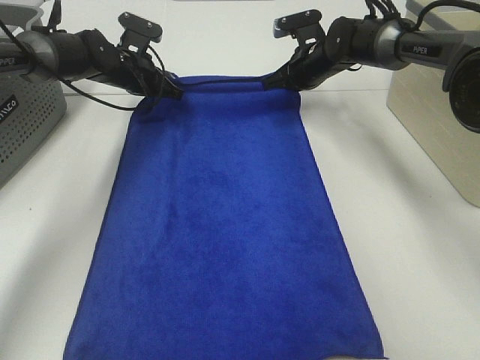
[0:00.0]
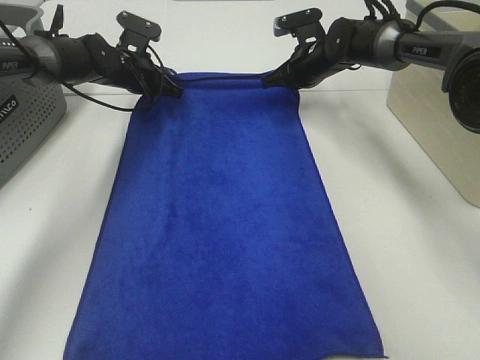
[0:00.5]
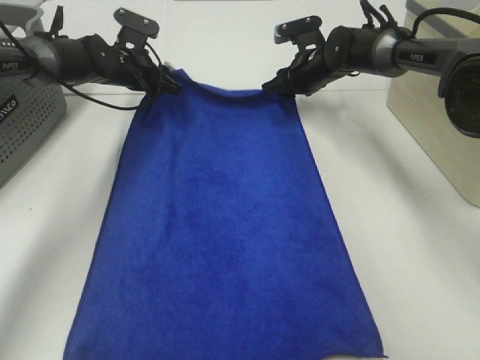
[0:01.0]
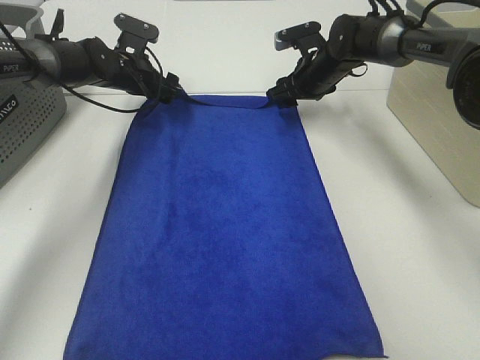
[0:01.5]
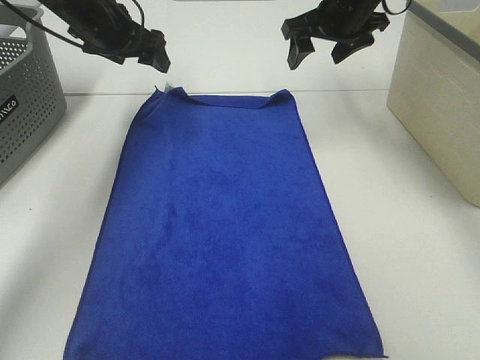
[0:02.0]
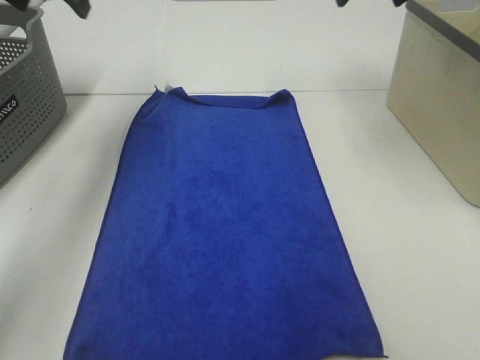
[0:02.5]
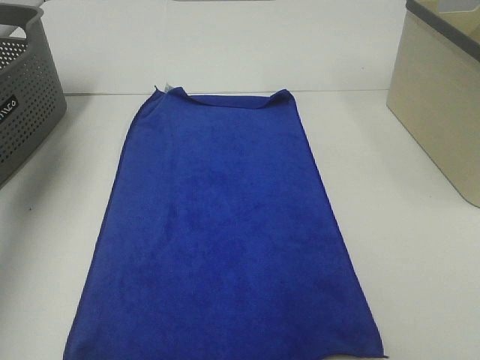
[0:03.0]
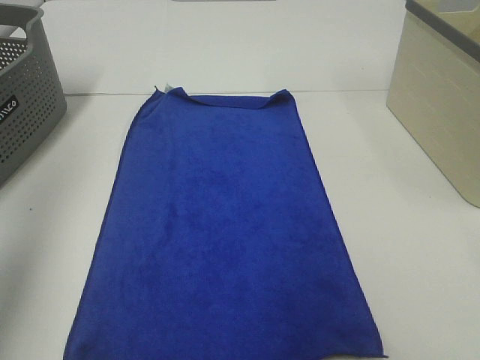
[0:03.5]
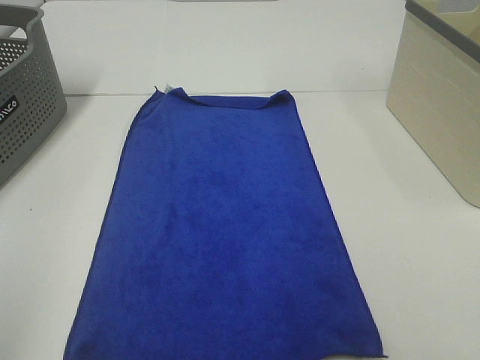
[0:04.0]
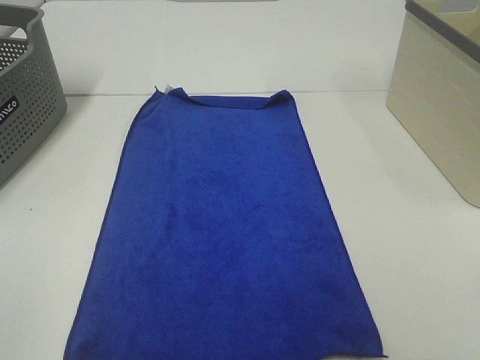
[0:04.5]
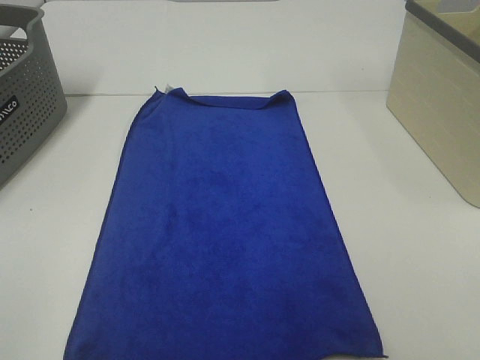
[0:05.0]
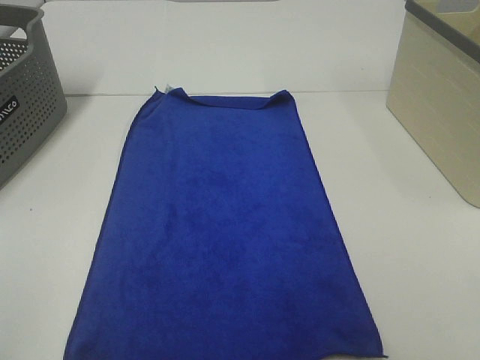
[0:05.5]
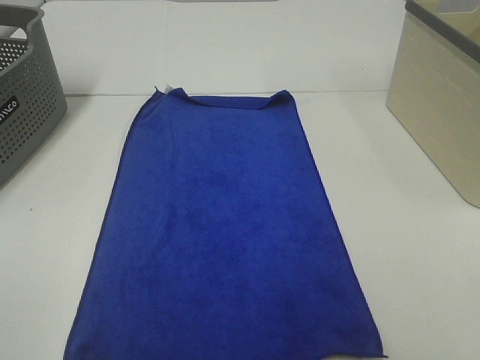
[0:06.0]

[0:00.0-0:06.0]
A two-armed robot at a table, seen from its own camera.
Task of the whole recording: Remove the towel and place it.
0:00.0 to 0:02.0: The left gripper travels upward by about 10 cm, and opens its fingers. The right gripper is displaced upward and backward by roughly 15 cm, and opens its fingers.
0:02.0 to 0:04.0: Both grippers travel together backward, about 50 cm.

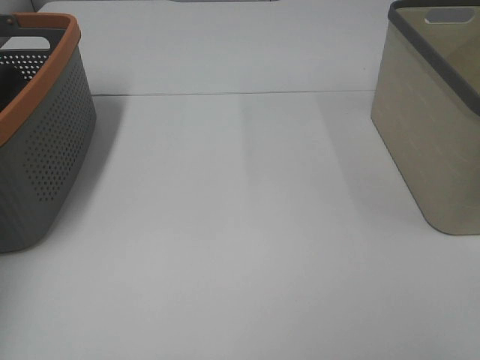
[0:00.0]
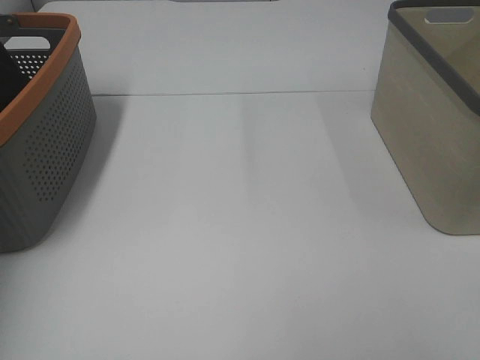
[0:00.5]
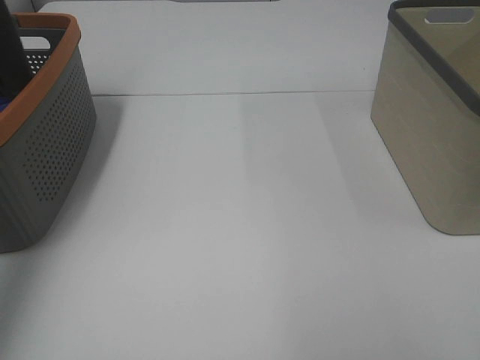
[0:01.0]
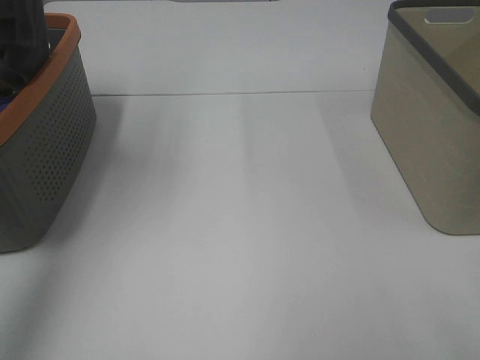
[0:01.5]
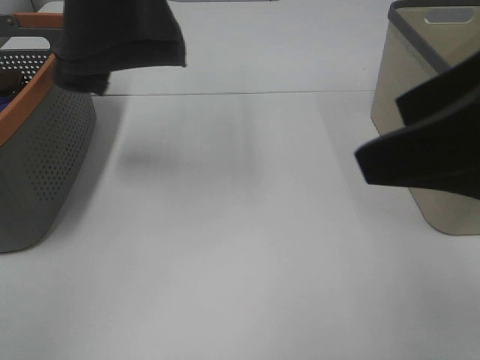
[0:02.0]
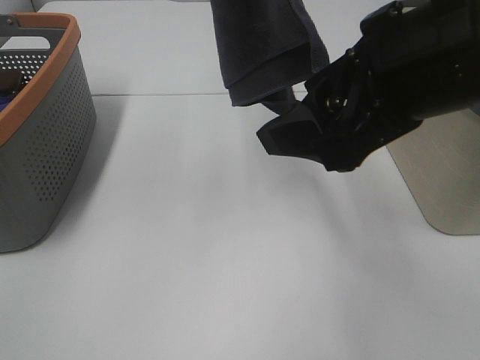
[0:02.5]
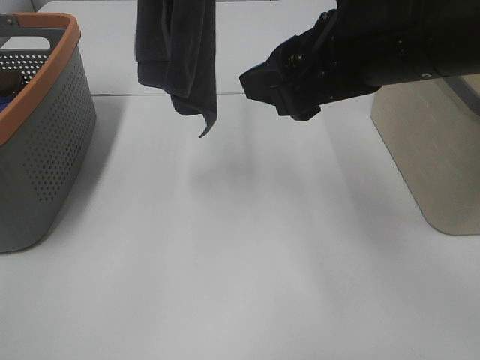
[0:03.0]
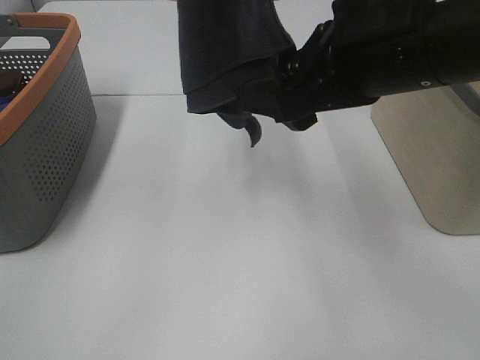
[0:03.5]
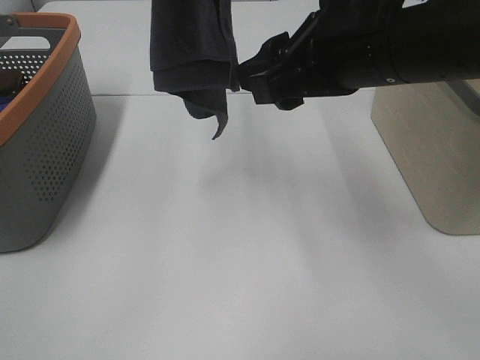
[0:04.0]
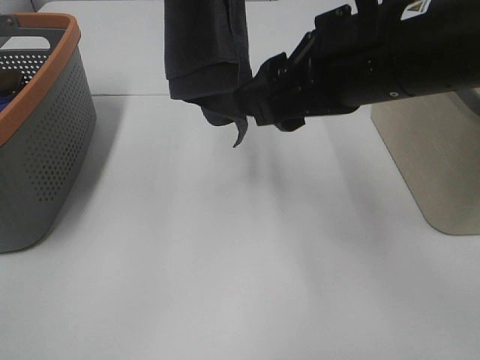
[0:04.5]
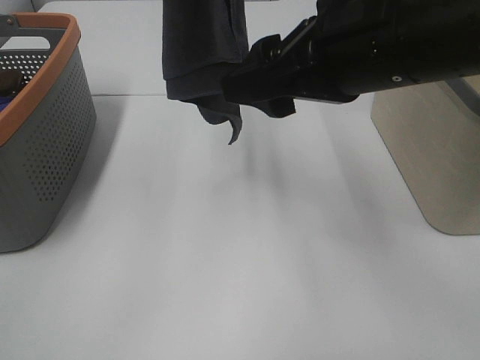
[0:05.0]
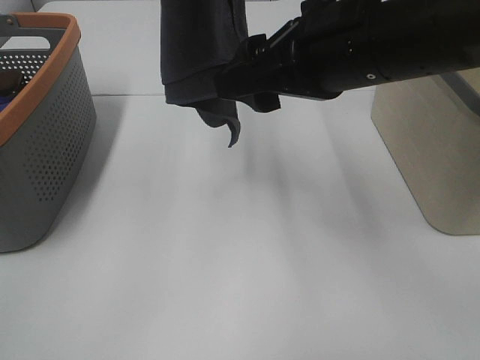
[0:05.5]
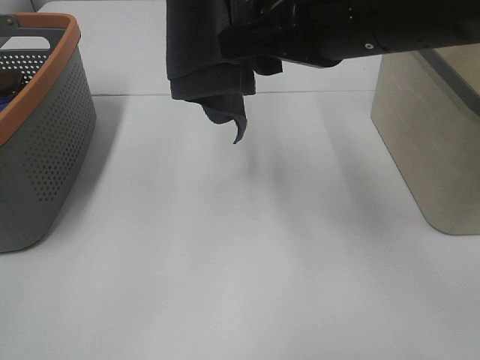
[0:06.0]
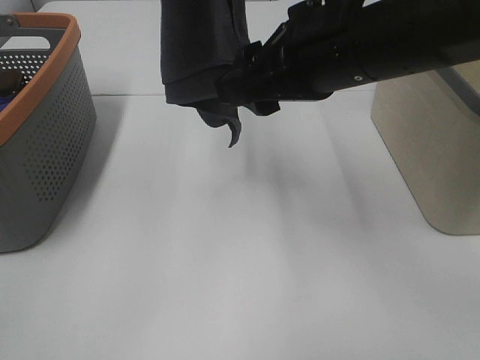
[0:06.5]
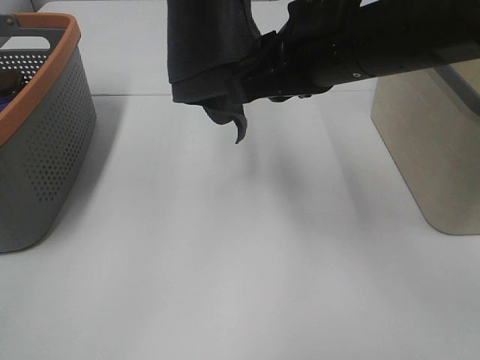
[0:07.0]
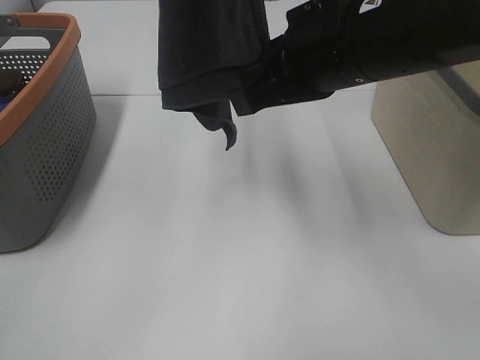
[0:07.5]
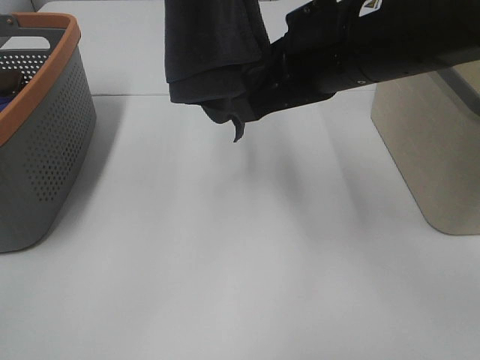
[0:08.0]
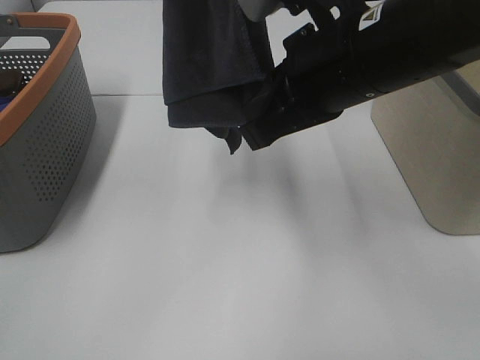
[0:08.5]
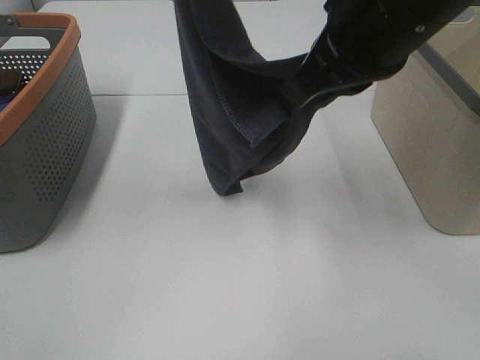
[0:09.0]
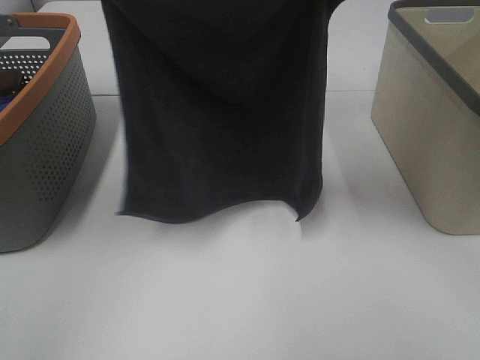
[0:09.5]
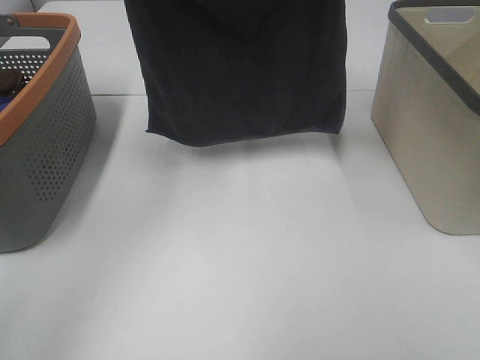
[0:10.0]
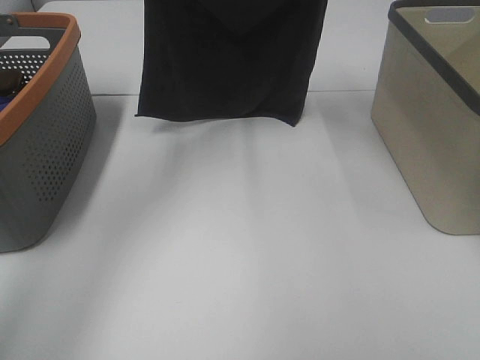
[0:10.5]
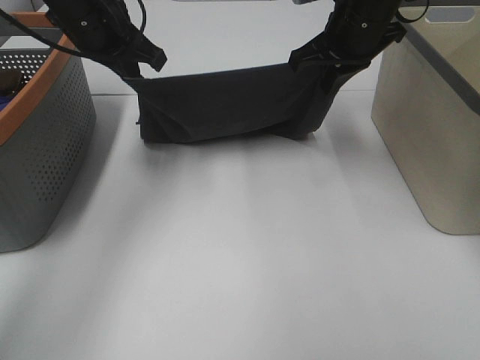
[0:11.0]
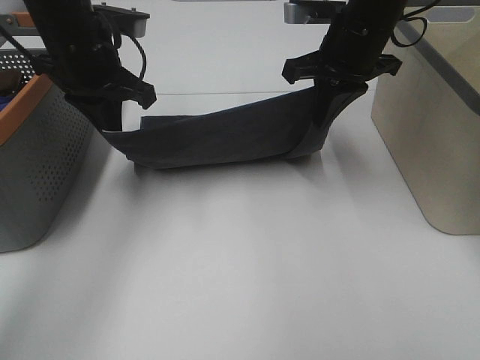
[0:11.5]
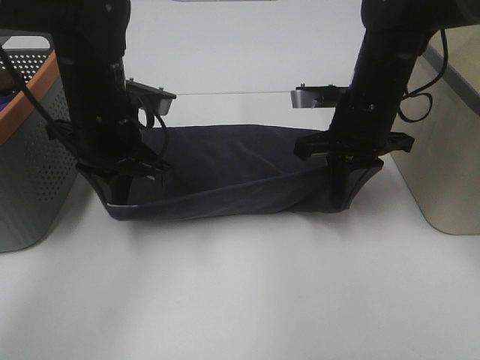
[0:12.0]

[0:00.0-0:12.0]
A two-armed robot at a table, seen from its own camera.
Task of the whole recording: Remove the towel and place it.
Step, 0:00.0 to 0:05.5: Right hand: grab a corner of the grey towel and straighten it.
Step, 0:06.0 to 0:07.5: Right hand: spread the grey towel flat on the table.
0:00.0 to 0:02.0: The left gripper is displaced to the right, upward and backward by some 35 cm. The right gripper shifts about 20 cm forward, to the left and upward.
0:02.0 to 0:04.0: The right gripper goes roughly 10 cm forward and to the left.
0:04.0 to 0:06.0: The grippers make only small movements.
0:06.0 to 0:08.0: The right gripper closes its fingers.
0:08.0 to 0:10.0: The right gripper moves forward and upward, approximately 20 cm, while the left gripper is displaced downward, forward and to the left by some 15 cm.
0:10.0 to 0:12.0: The grippers both shift downward by about 20 cm.

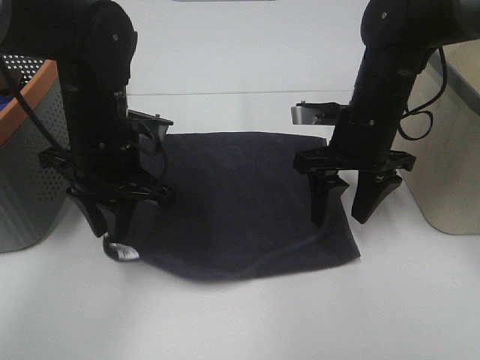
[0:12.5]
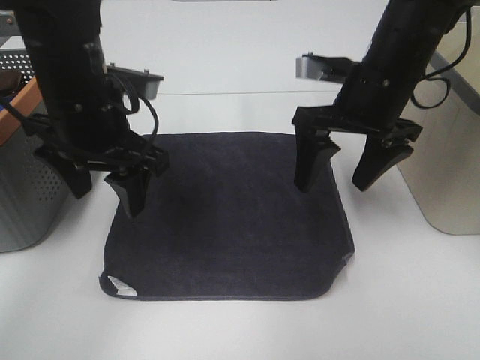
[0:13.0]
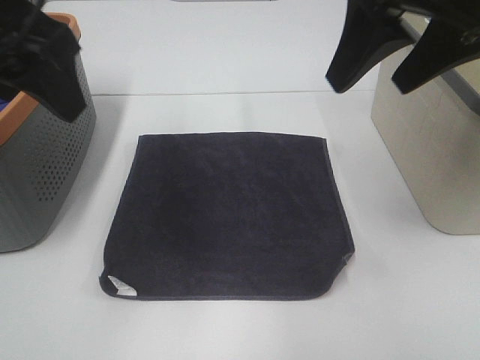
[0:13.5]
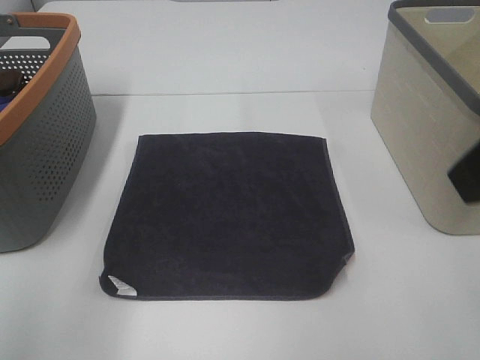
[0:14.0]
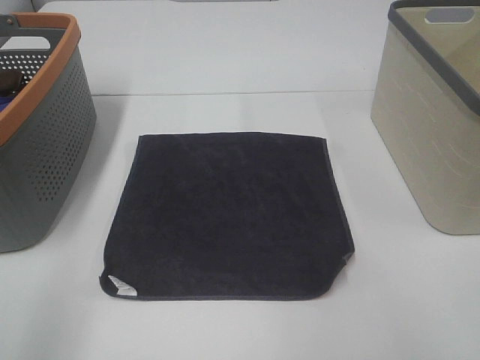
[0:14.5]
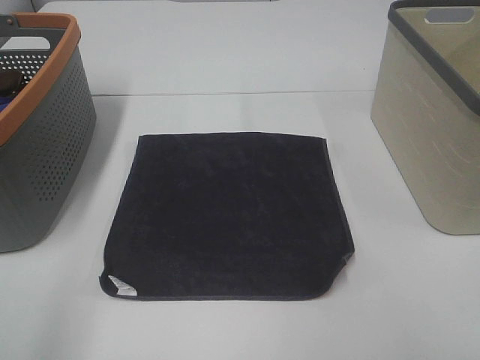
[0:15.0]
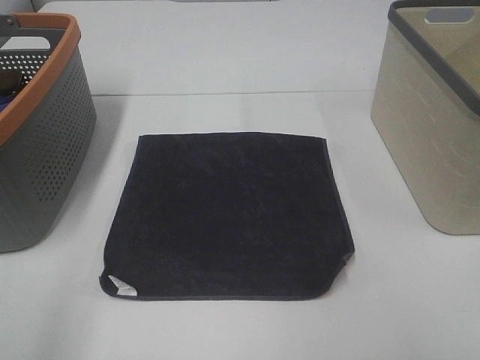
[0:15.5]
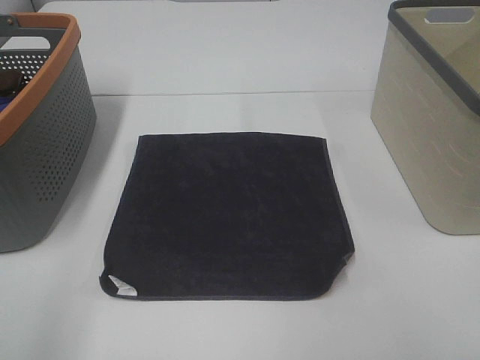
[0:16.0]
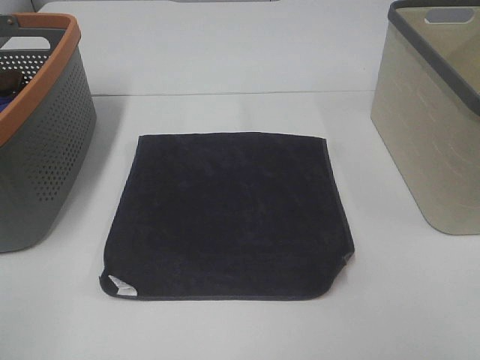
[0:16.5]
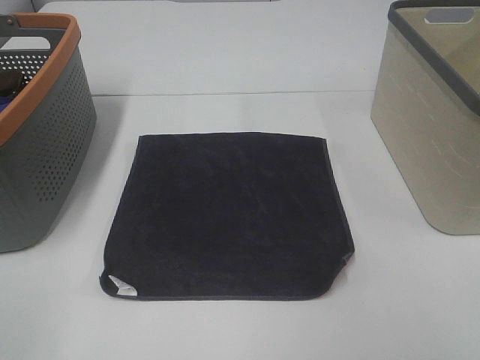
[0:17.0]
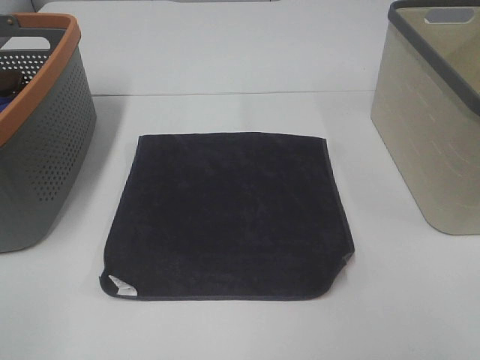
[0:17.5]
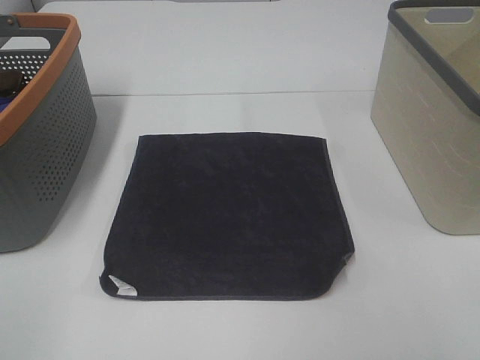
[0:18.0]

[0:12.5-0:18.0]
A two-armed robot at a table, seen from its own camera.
Task of the whole recording: Remove the towel and place it.
0:12.5 to 0:14.5: The left gripper is displaced backward and to the left by roughly 30 cm, and opens up. Meanwhile the right gripper heads backward and upward, covering roughly 30 cm.

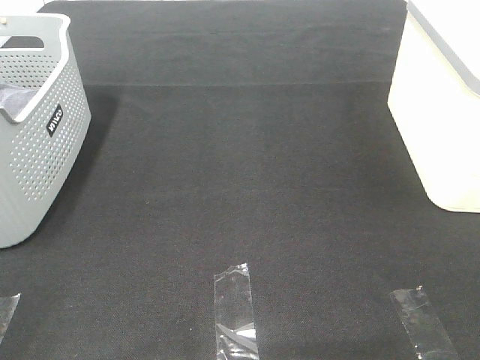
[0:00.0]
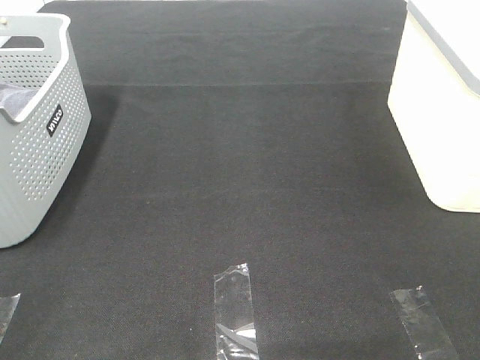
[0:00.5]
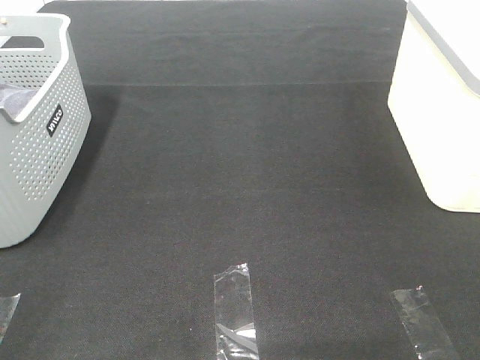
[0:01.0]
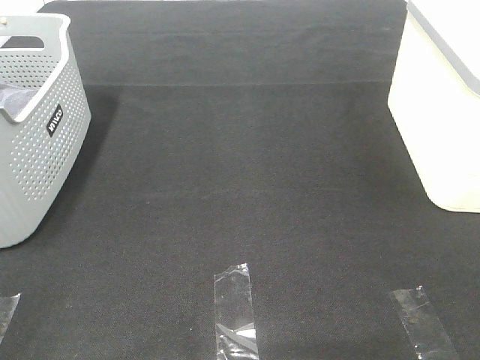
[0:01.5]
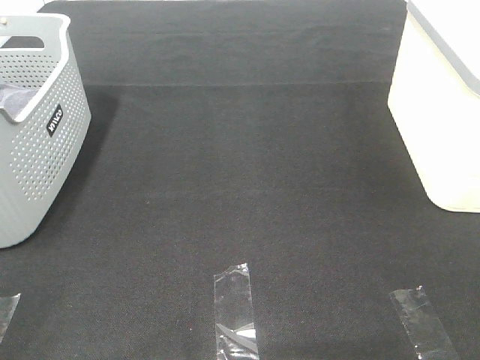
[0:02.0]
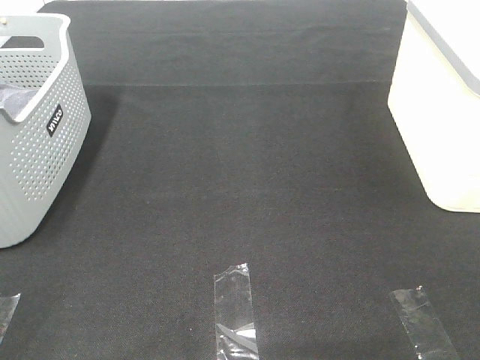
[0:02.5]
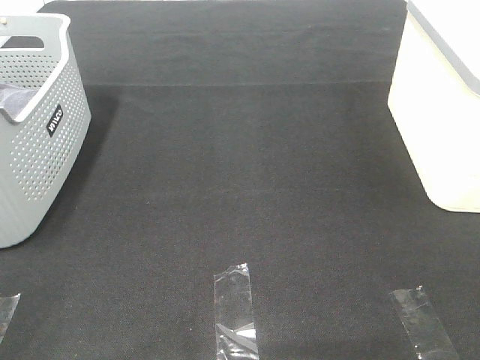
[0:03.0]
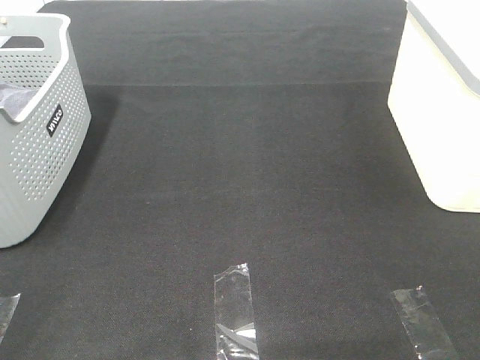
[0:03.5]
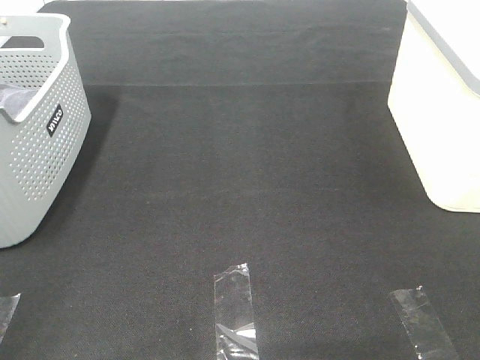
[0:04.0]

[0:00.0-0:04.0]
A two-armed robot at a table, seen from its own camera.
Task of the whole recording: Remove the towel and place it.
0:00.0 to 0:02.0: Neither gripper changes place.
